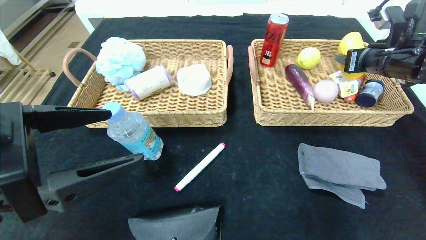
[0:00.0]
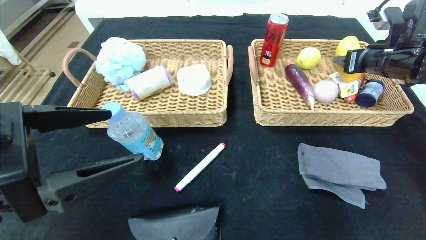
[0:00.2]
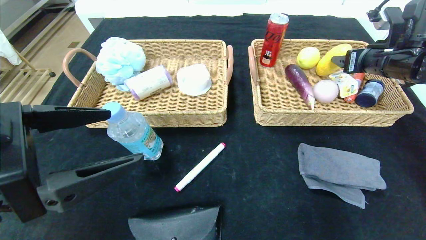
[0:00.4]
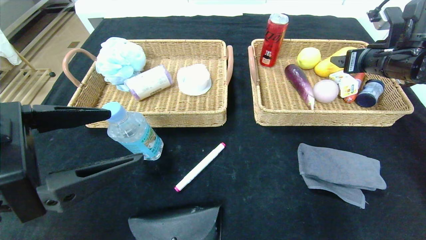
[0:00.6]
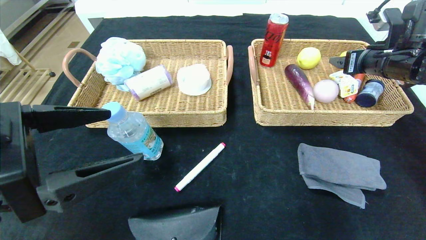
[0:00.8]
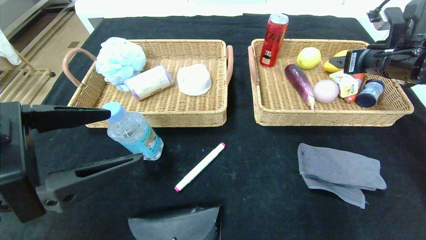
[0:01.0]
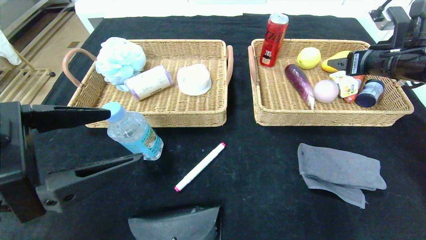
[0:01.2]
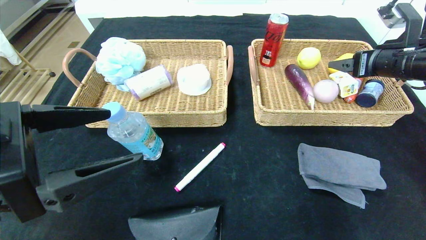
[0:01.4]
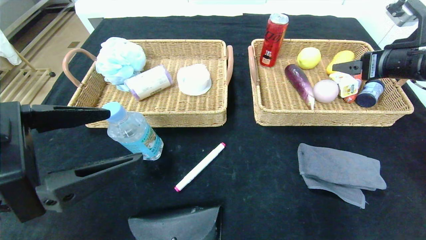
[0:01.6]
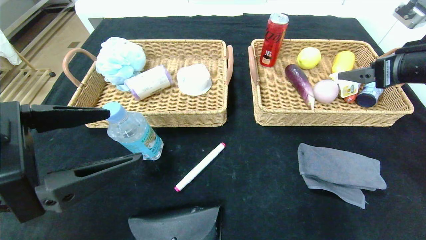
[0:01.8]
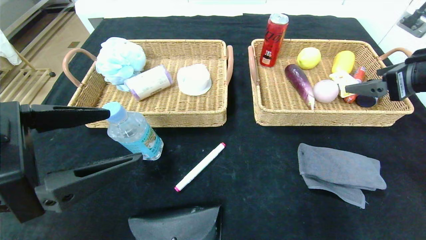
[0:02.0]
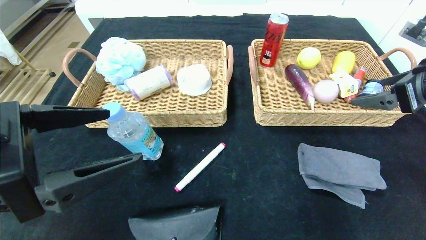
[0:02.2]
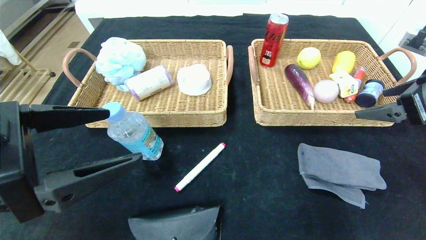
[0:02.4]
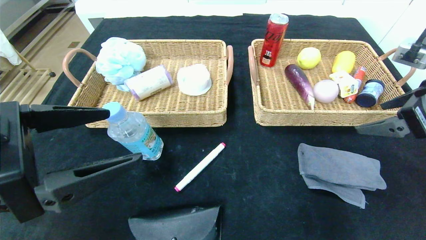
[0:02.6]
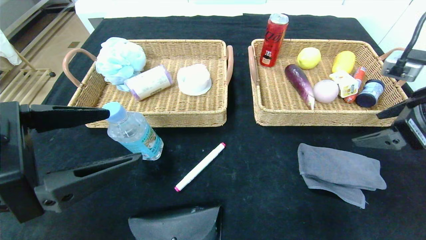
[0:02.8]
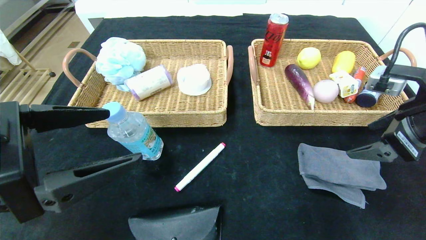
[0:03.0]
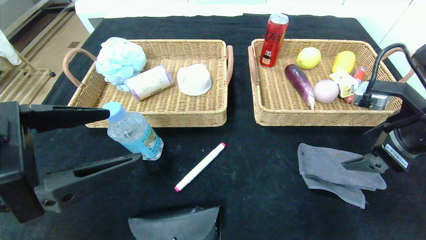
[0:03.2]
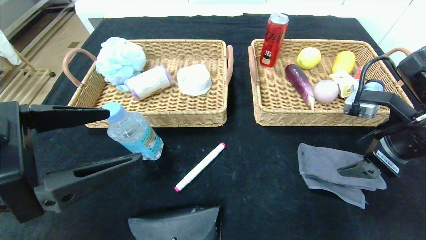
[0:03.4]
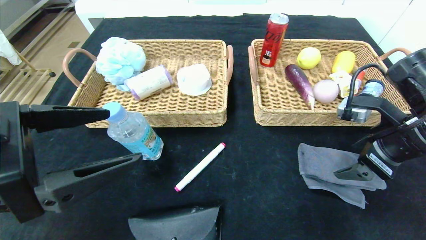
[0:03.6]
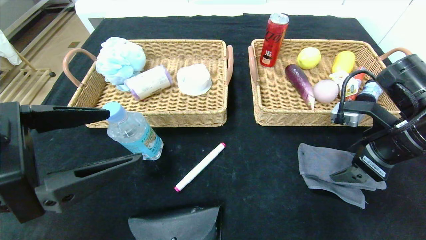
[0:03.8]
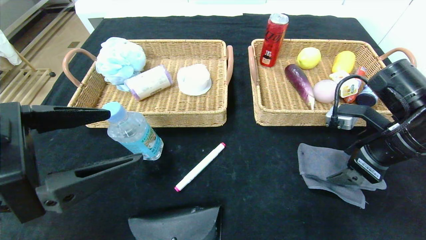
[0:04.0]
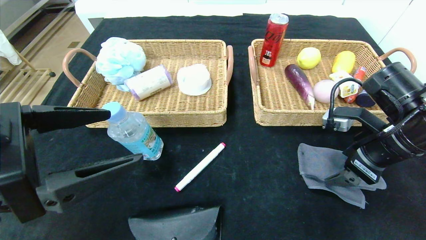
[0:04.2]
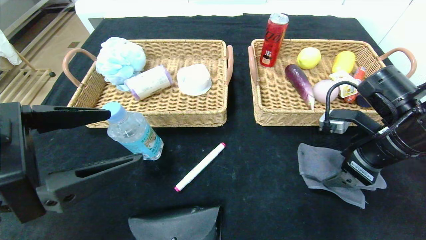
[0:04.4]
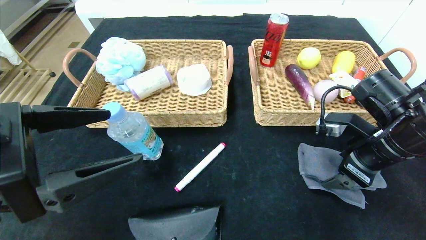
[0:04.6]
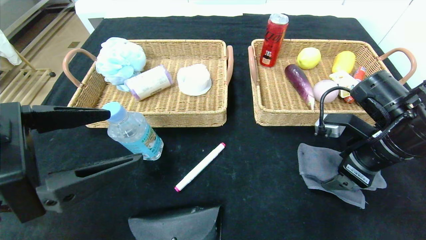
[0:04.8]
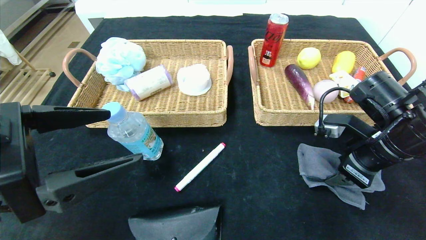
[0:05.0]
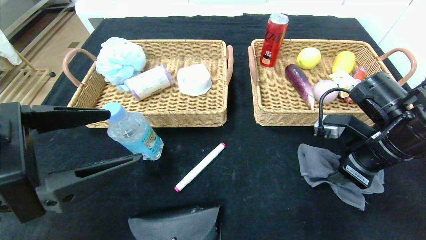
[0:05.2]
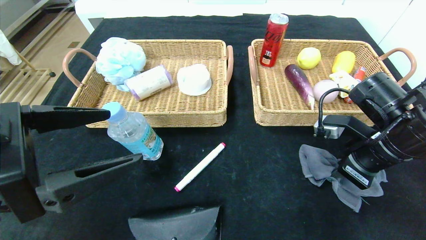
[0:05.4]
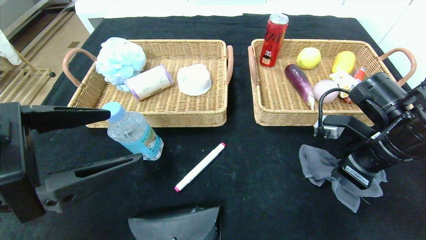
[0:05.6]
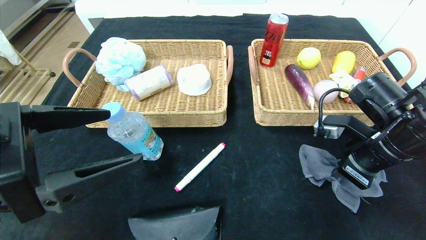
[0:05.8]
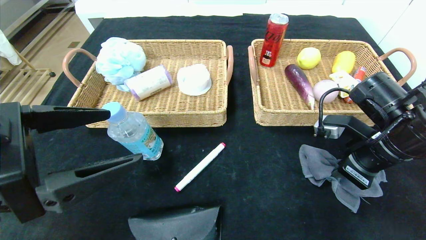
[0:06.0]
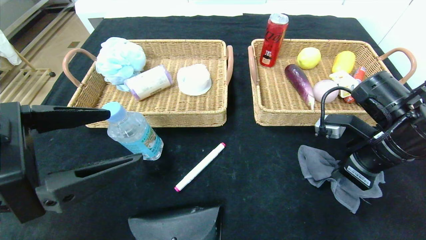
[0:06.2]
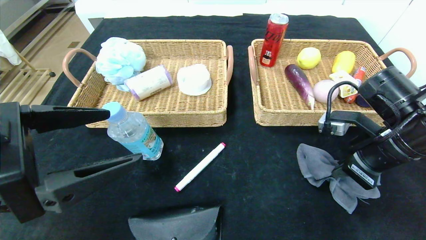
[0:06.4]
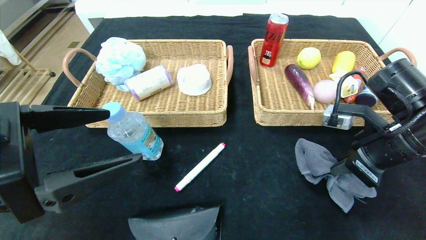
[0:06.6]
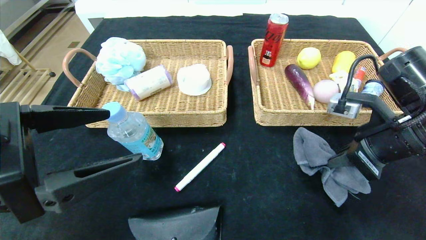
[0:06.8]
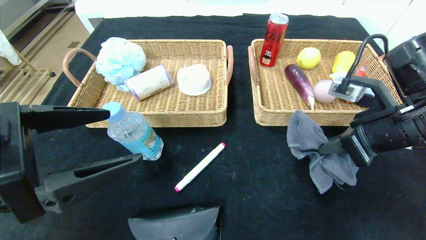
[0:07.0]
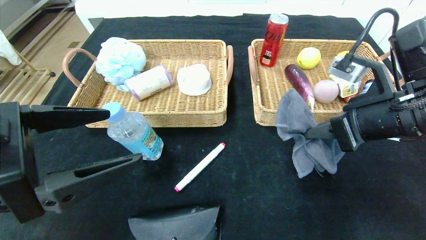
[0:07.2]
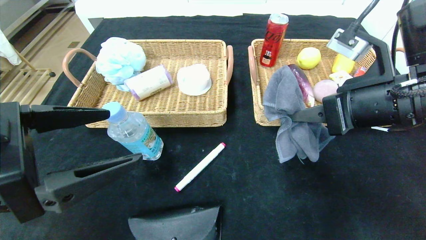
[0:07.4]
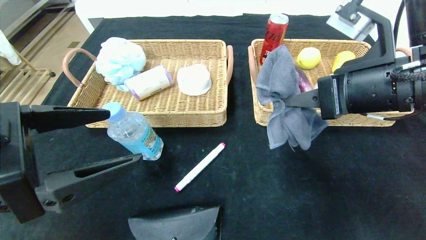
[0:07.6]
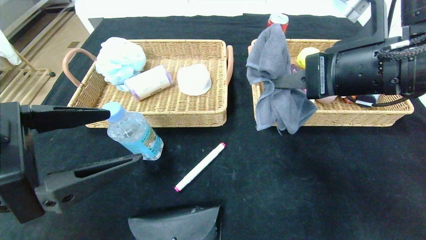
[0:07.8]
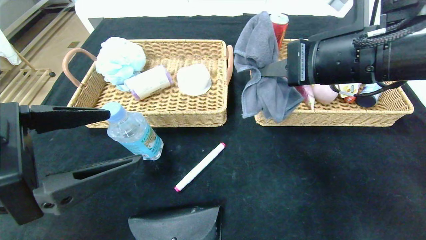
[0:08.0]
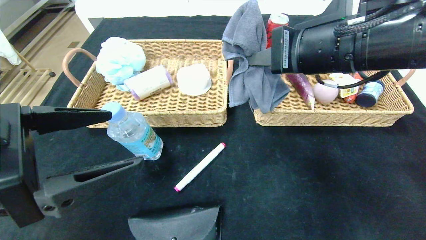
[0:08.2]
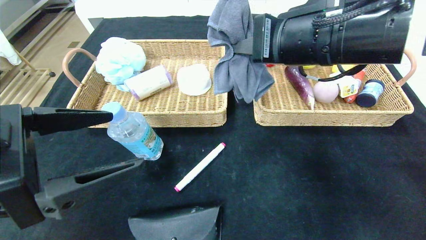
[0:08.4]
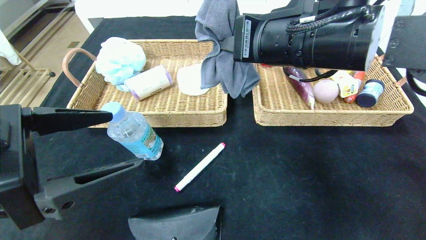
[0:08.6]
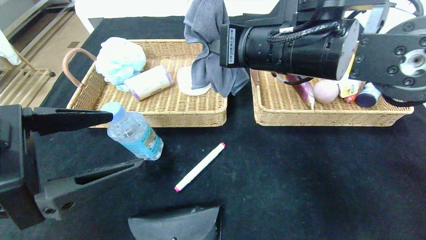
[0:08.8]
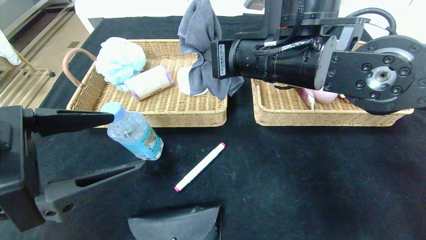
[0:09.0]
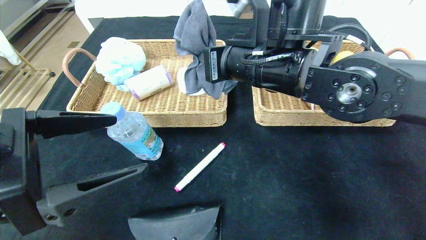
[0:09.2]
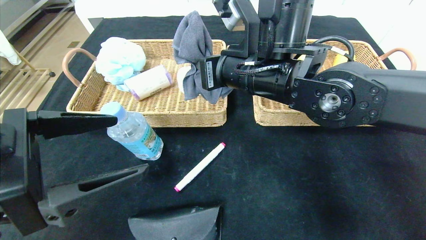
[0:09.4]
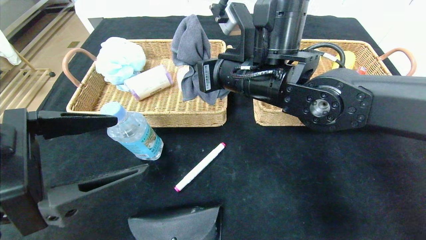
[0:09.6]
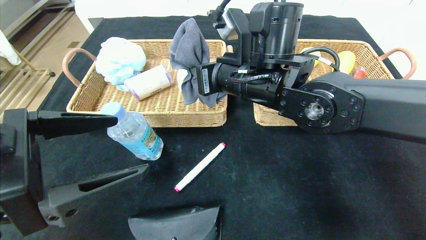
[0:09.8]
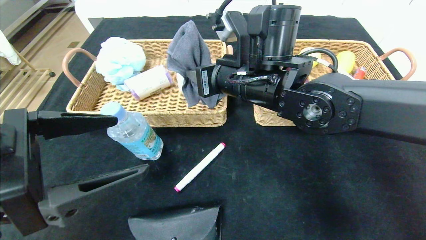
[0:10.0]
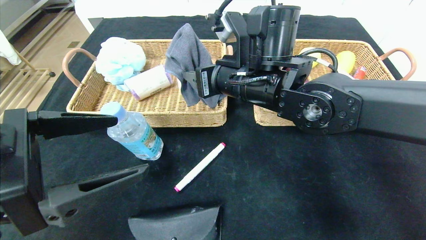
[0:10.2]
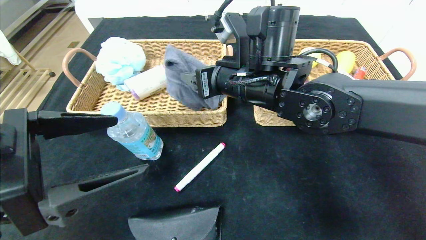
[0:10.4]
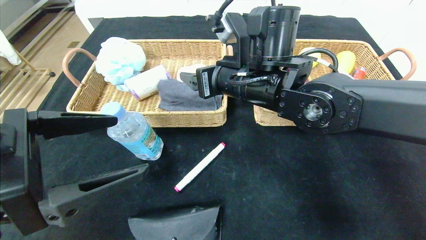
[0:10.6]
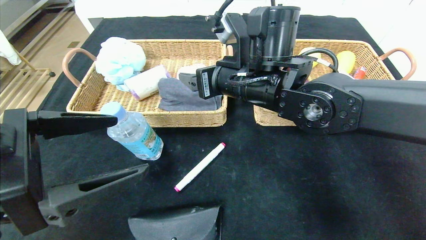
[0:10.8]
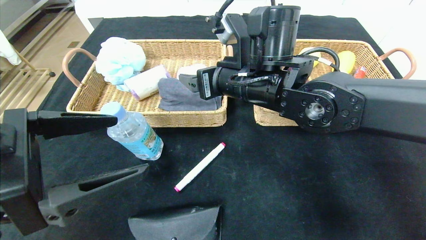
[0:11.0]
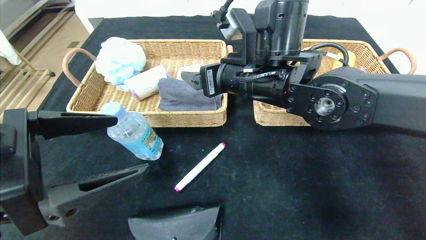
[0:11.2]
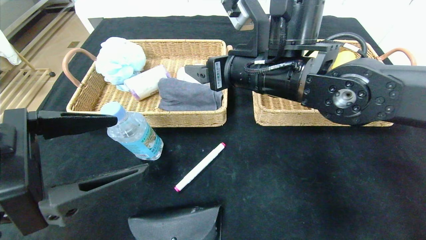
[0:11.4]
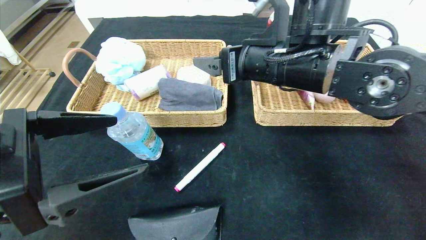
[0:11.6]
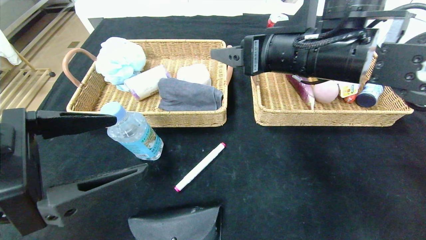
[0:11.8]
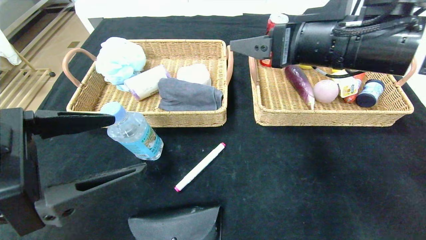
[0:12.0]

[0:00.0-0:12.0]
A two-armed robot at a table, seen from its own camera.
0:00.0 to 0:01.6: The right gripper heads backward, covering roughly 5 cm, and opens up.
0:01.6 to 0:03.0: The right gripper shifts roughly 10 cm backward.
0:03.0 to 0:04.4: The right gripper is displaced downward by roughly 5 cm.
0:04.4 to 0:06.0: The right gripper closes.
0:06.0 to 0:07.6: The right gripper travels upward and to the left by about 10 cm.
0:07.6 to 0:09.0: The right gripper heads to the left and forward, covering roughly 15 cm.
0:09.0 to 0:10.4: The right gripper shifts by roughly 5 cm, and opens.
0:10.4 to 0:12.0: The right gripper travels to the right and upward by about 15 cm.

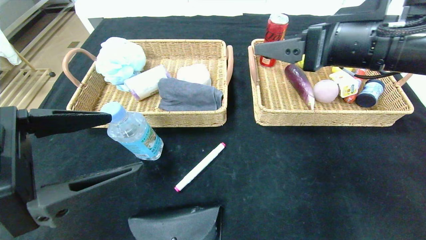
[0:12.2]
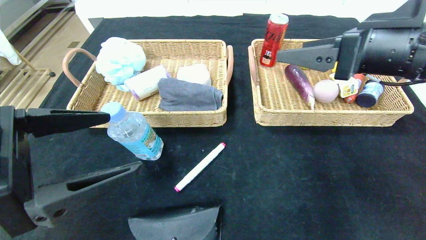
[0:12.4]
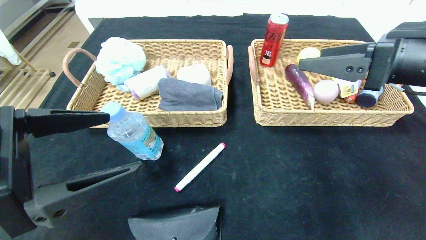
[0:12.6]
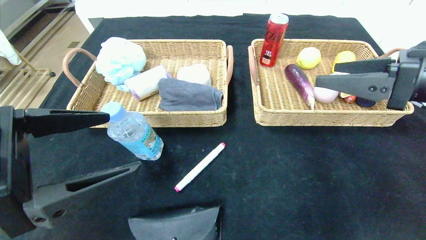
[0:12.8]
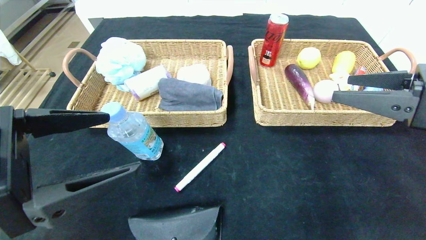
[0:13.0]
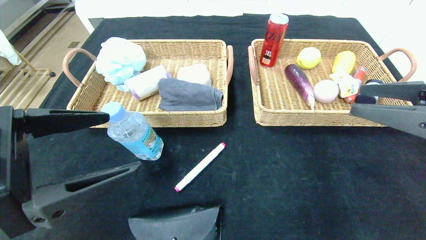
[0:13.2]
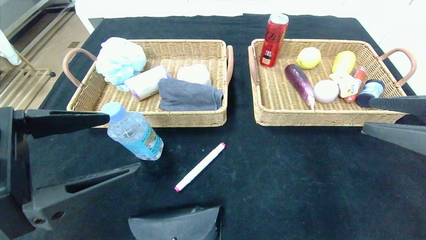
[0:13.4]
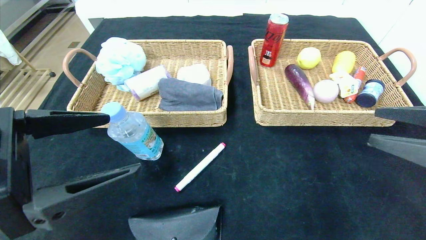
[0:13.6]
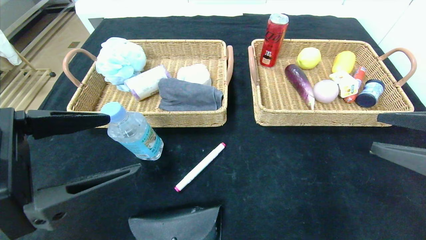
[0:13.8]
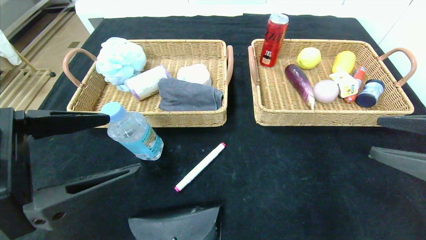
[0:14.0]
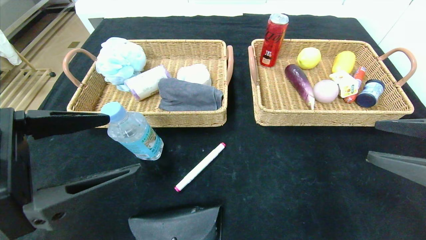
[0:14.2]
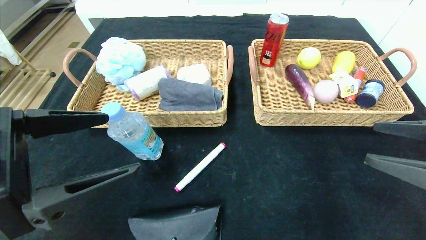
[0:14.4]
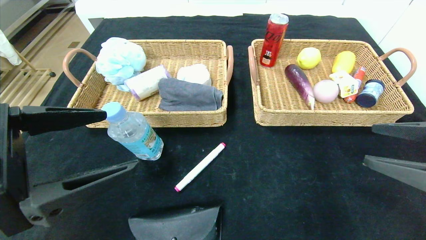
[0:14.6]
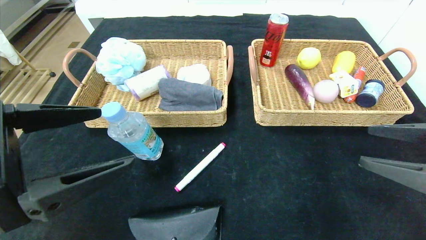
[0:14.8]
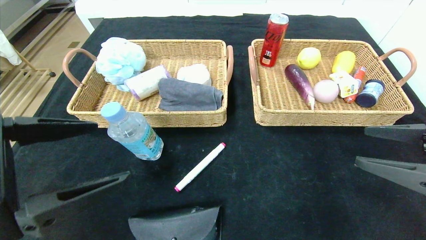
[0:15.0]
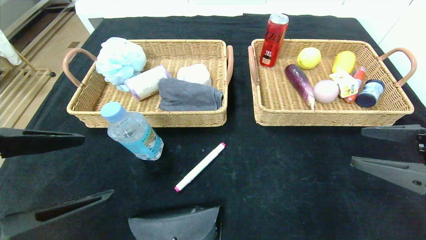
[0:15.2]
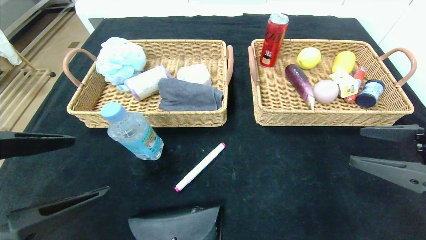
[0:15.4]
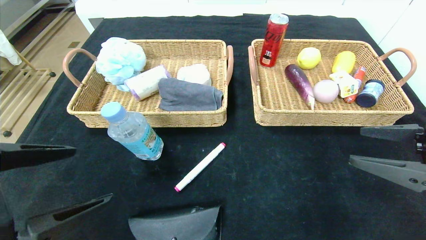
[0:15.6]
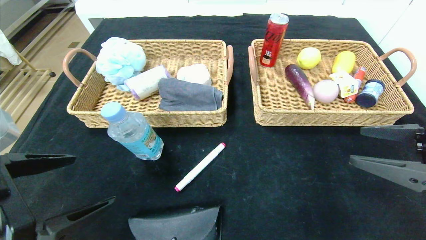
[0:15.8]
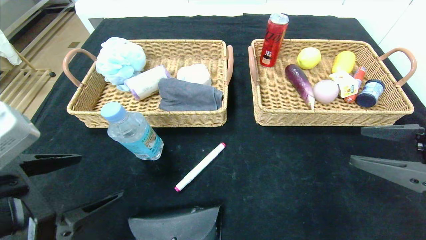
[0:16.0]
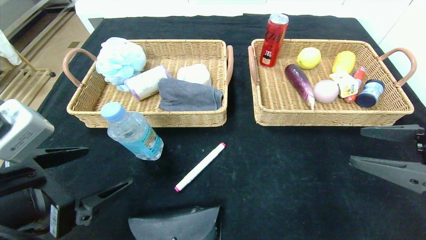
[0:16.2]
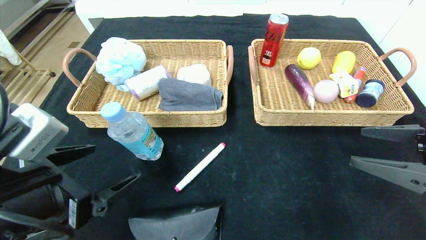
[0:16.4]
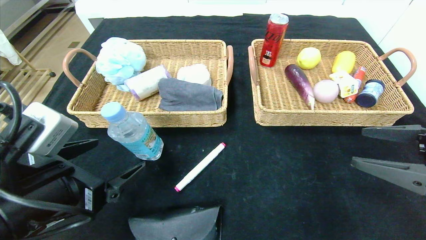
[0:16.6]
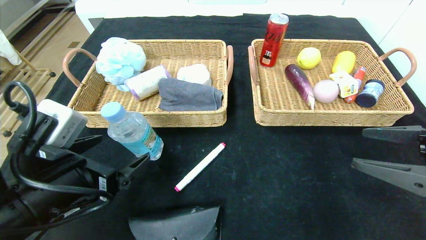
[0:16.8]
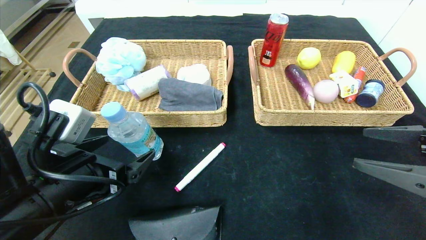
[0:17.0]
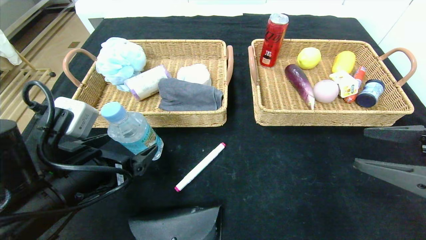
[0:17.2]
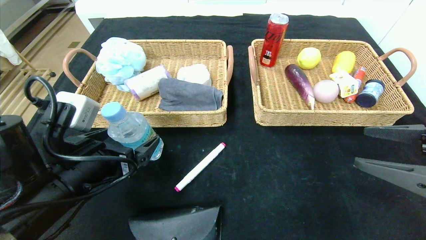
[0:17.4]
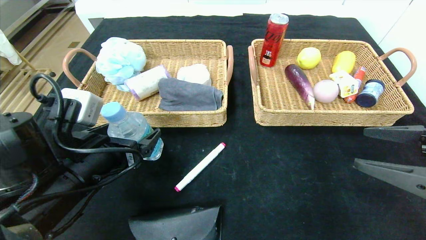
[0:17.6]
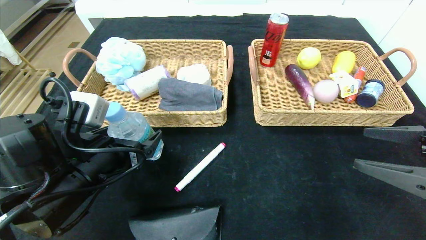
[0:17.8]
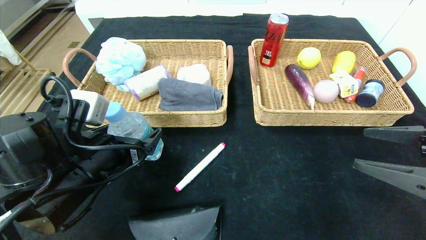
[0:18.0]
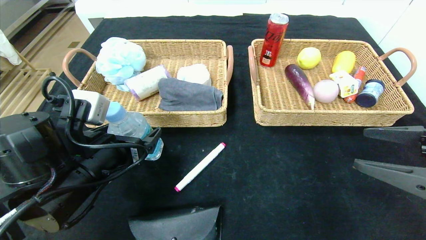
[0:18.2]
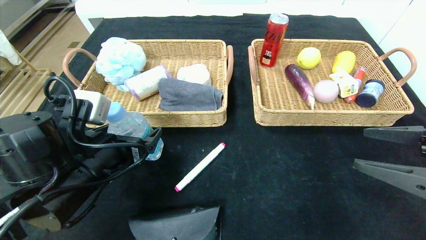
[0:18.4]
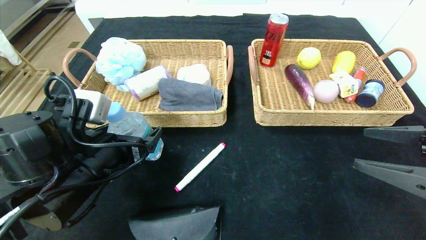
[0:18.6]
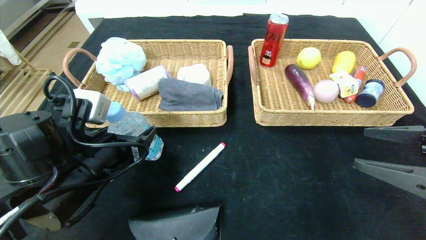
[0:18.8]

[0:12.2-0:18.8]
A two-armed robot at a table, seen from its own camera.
0:12.2 to 0:13.8: The right gripper is displaced to the right, backward and downward by approximately 20 cm.
0:13.8 to 0:15.4: The grippers make only small movements.
0:15.4 to 0:17.2: The left gripper heads forward and downward, covering roughly 10 cm.
0:17.2 to 0:18.8: There are only small adjustments of the grippers.
